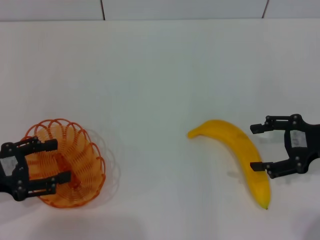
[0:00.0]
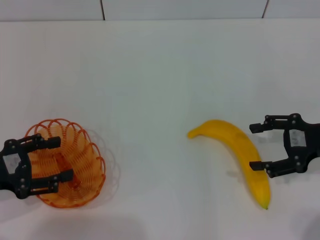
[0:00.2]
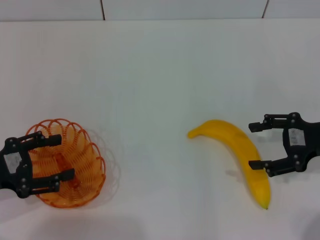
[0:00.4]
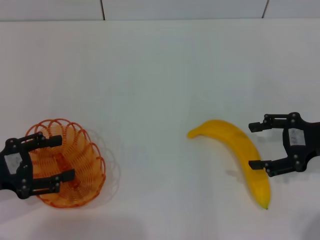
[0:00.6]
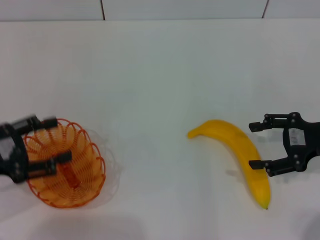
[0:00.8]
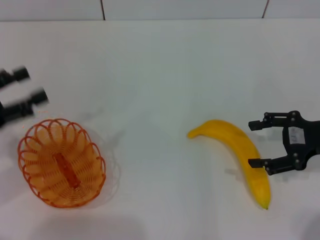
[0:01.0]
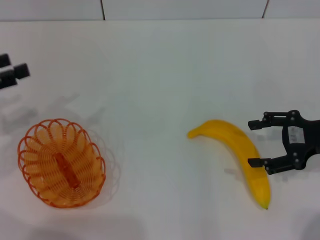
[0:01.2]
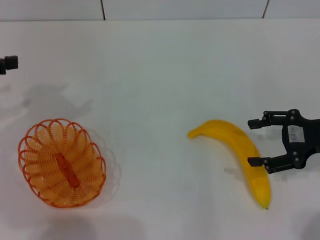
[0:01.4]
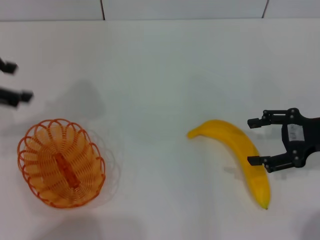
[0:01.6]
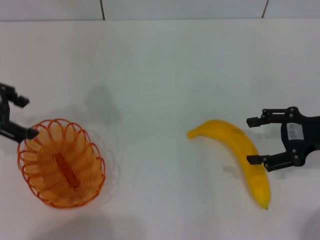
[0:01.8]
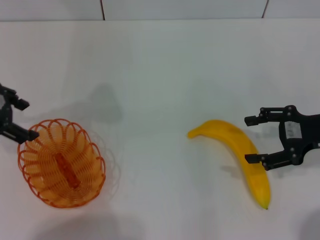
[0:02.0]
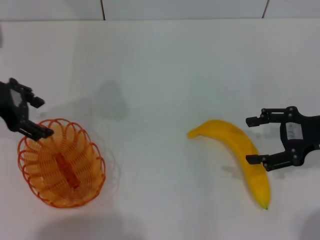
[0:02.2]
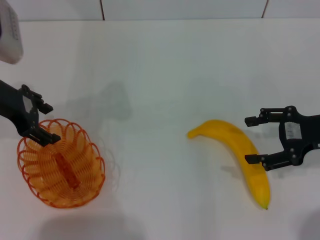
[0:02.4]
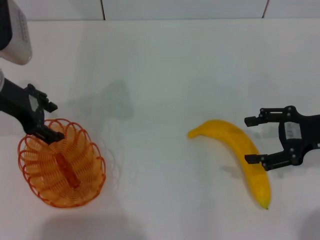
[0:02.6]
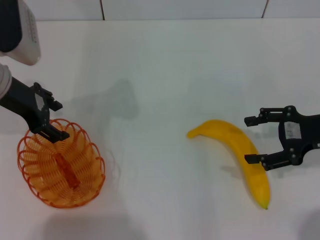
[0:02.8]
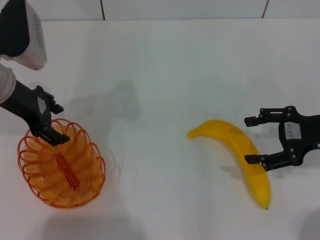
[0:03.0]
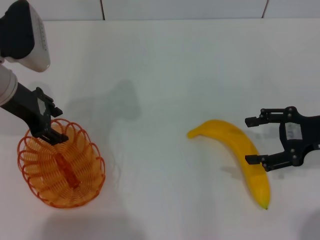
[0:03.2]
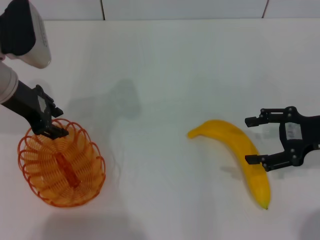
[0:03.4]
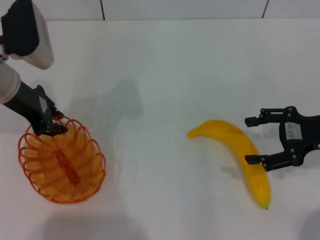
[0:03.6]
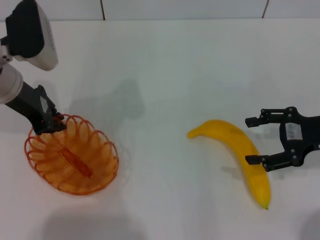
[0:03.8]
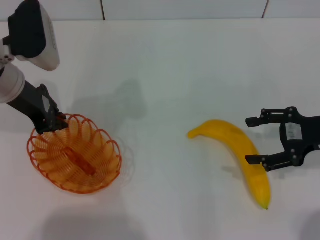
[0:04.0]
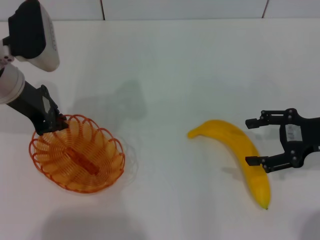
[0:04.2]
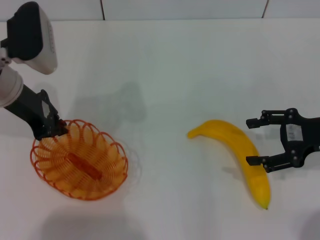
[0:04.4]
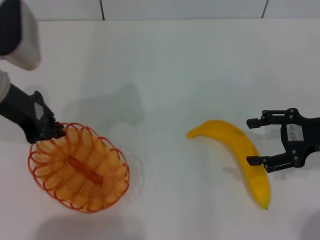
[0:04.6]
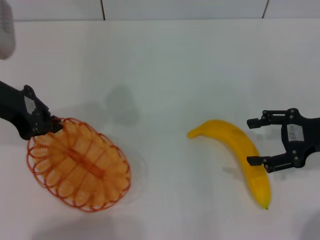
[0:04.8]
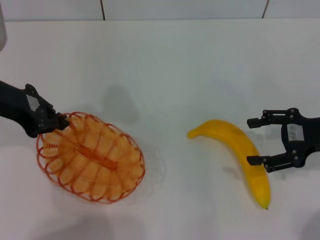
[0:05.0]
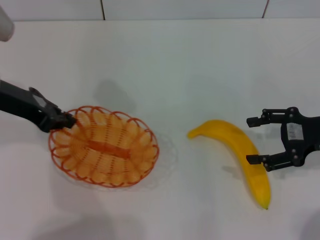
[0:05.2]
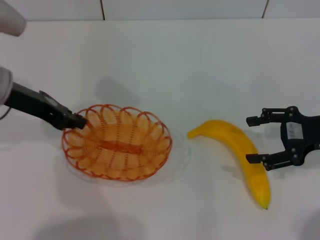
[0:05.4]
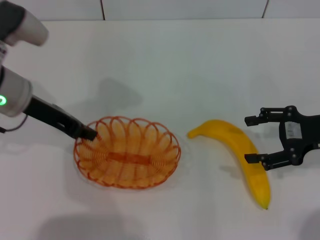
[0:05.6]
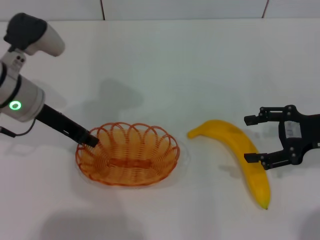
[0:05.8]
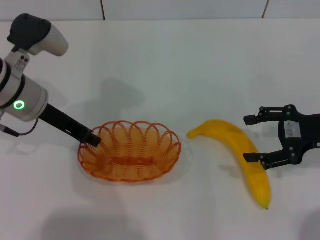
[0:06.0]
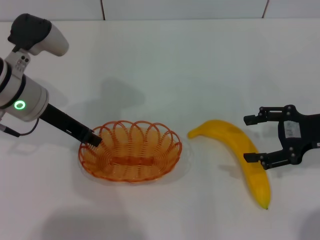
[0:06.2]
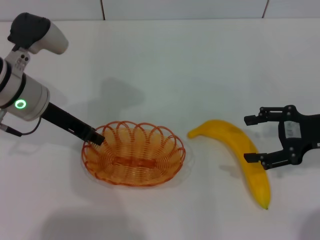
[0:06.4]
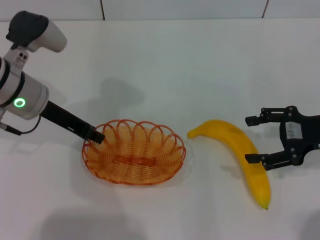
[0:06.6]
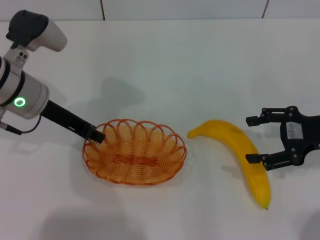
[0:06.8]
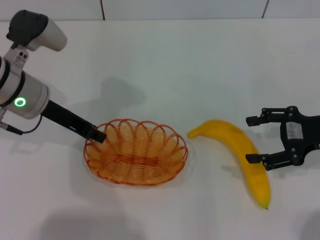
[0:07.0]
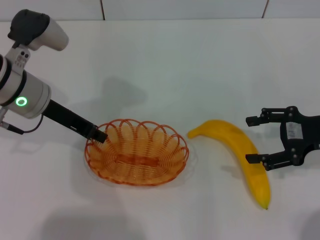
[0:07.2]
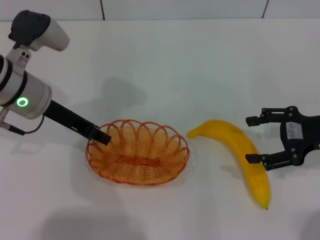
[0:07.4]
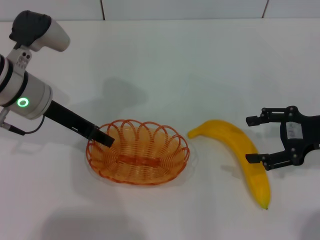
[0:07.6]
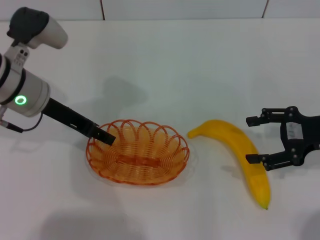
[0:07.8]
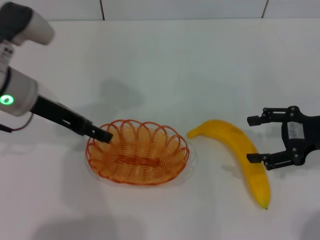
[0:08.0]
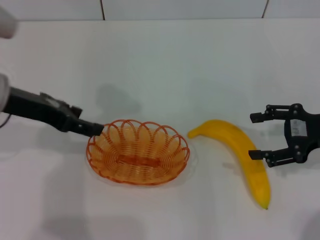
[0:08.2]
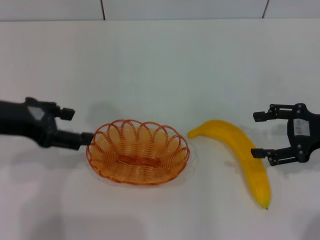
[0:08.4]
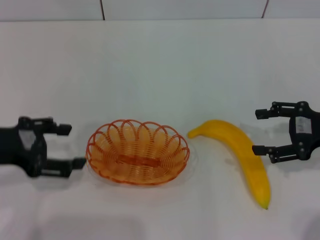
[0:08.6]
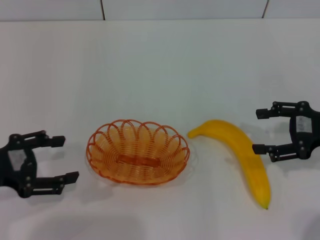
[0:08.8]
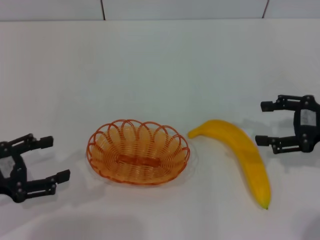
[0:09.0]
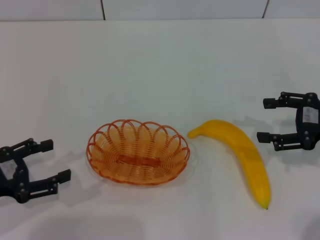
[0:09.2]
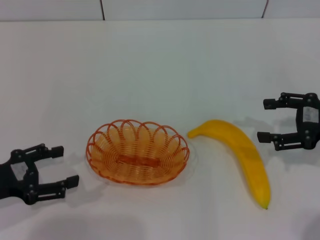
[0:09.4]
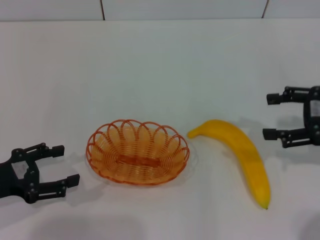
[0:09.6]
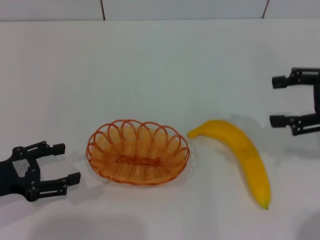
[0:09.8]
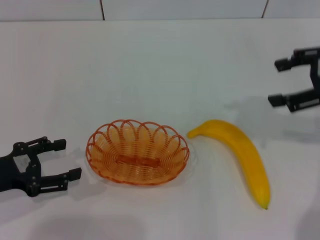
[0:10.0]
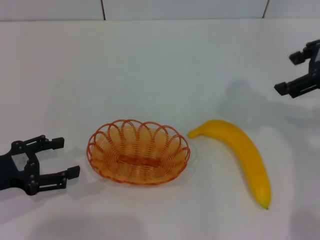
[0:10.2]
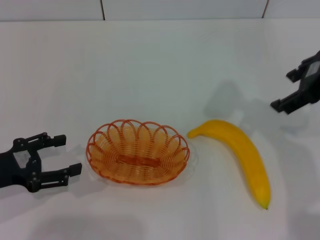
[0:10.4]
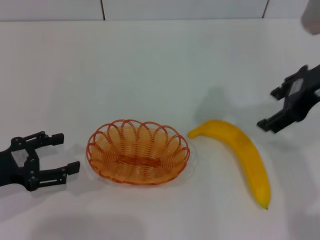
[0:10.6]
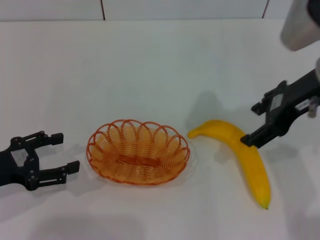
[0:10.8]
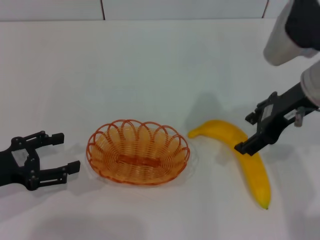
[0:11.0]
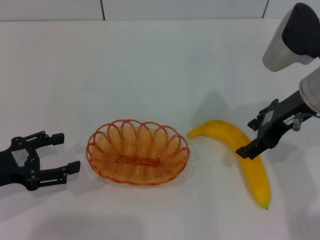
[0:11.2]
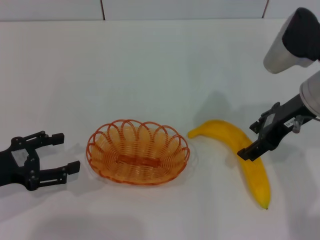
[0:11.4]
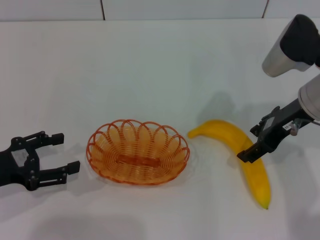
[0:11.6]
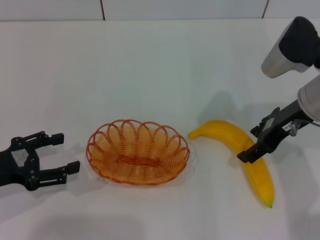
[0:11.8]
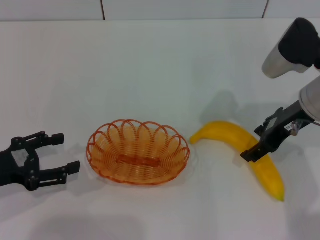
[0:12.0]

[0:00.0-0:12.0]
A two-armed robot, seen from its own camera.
Step, 0:00.0 to 0:05.0: Pick up the basket with the left gripper.
Step, 0:05.2 to 0:08.2: Place the basket in the center of view with the left gripper.
0:00.0 to 0:01.6: The left gripper moves upward and forward, roughly 20 cm.
0:01.6 to 0:03.0: The left gripper shifts about 10 cm to the right and downward.
0:03.0 to 0:04.4: The left gripper closes.
0:06.0 to 0:07.6: Both grippers stay put.
0:07.6 to 0:09.0: The left gripper is displaced backward and to the left by about 20 cm, and opens its fingers.
0:09.0 to 0:10.4: The right gripper goes about 15 cm upward and to the left.
0:10.4 to 0:12.0: The right gripper moves downward, some 10 cm.

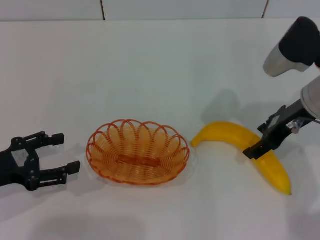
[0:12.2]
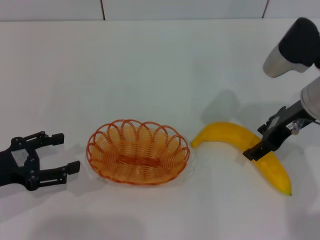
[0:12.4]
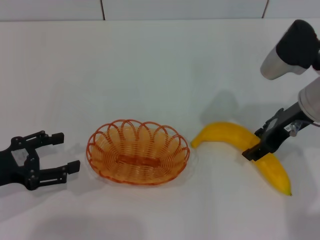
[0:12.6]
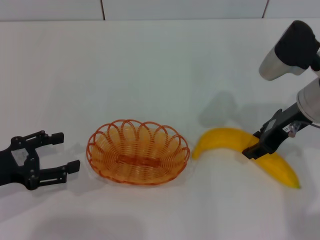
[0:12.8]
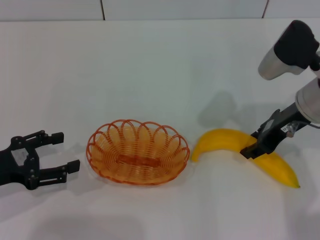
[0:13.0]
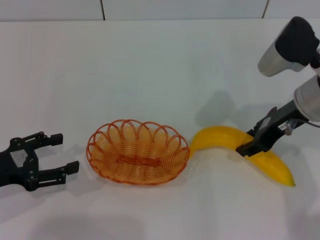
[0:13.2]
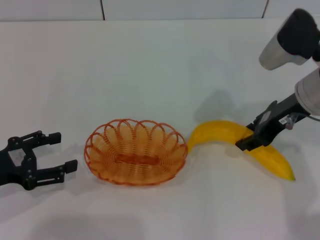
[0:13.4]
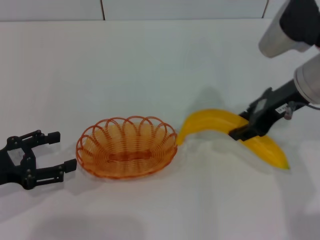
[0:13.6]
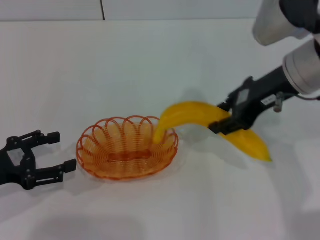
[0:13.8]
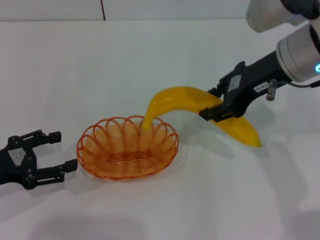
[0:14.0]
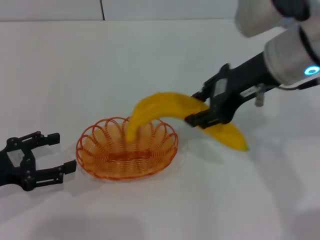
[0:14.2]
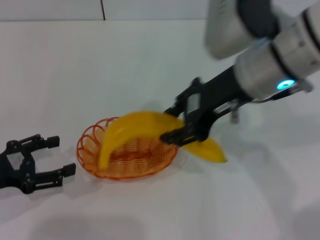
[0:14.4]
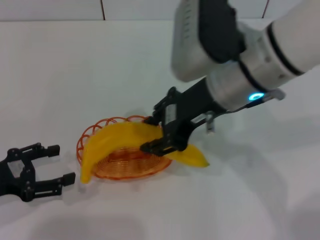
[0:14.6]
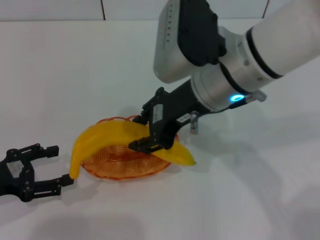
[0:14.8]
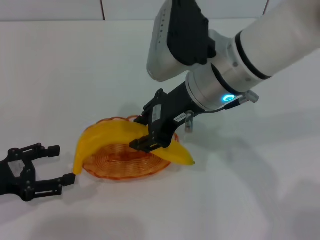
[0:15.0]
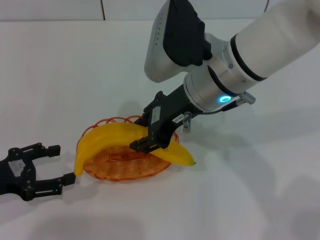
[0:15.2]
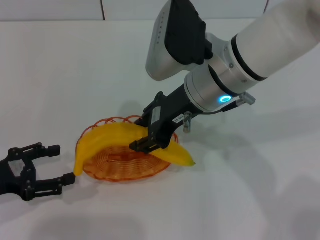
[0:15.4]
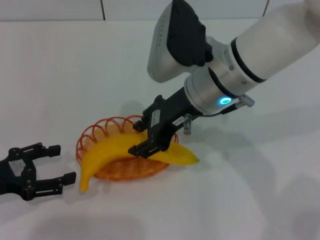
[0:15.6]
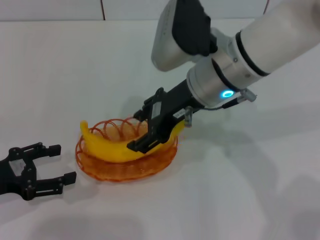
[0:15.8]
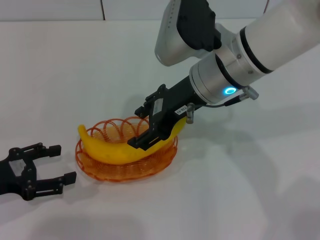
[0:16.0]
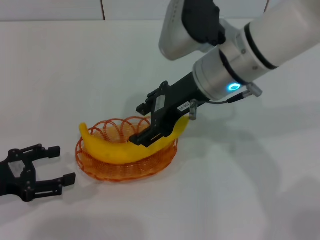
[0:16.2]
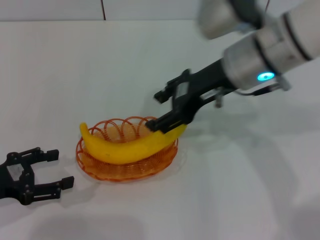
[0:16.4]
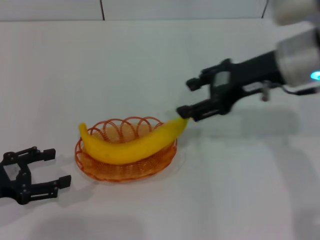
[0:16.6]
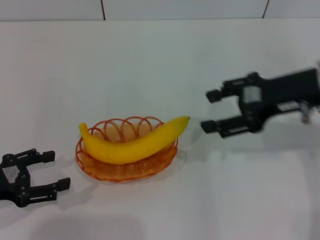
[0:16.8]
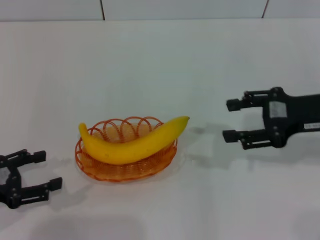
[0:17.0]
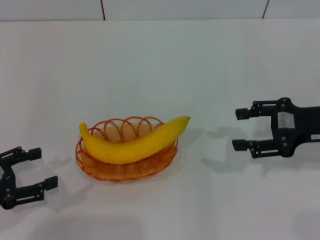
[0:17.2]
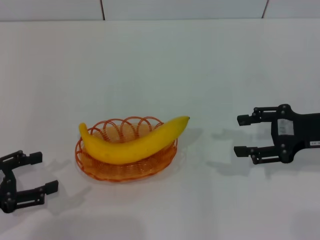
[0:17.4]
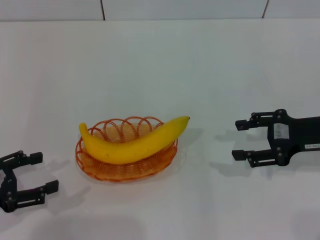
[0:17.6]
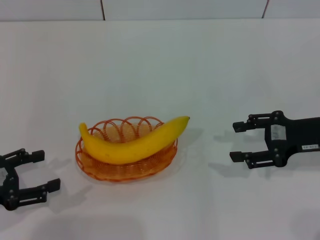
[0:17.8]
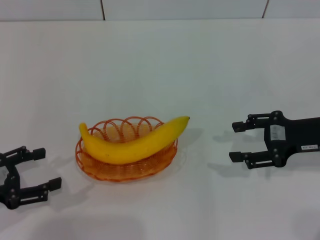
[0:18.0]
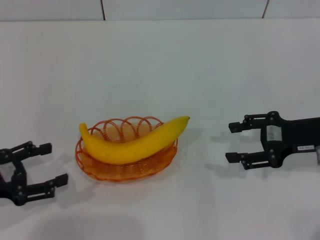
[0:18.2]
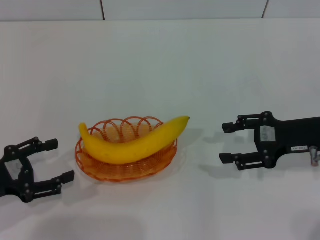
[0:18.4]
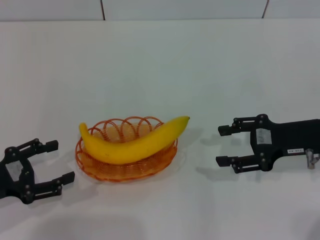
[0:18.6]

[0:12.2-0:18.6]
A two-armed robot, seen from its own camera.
Step, 0:13.8 to 0:16.2: Place the banana into the basket with the right gripper.
0:12.2 to 0:13.8: The right gripper goes some 5 cm upward, and closes up.
0:13.8 to 0:15.4: The right gripper travels to the left by roughly 10 cm.
0:15.4 to 0:17.0: The right gripper is displaced to the right by approximately 20 cm.
0:17.0 to 0:18.6: The right gripper shifts approximately 5 cm downward.

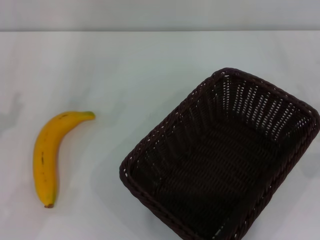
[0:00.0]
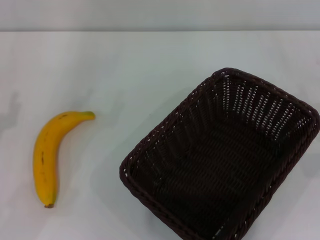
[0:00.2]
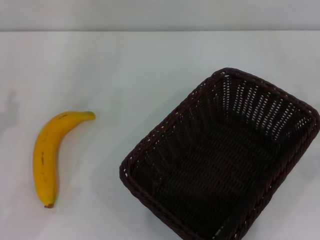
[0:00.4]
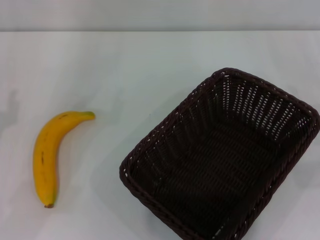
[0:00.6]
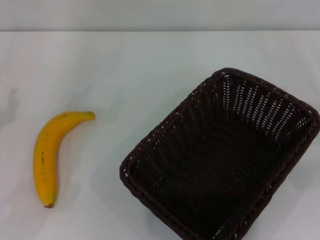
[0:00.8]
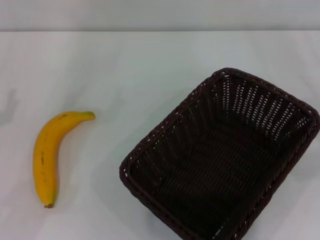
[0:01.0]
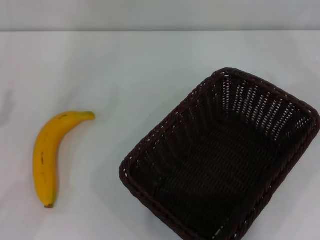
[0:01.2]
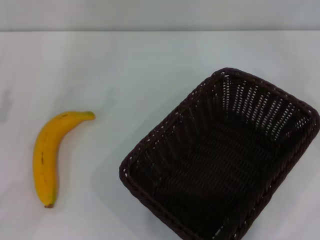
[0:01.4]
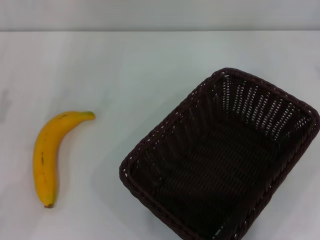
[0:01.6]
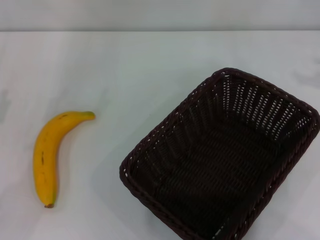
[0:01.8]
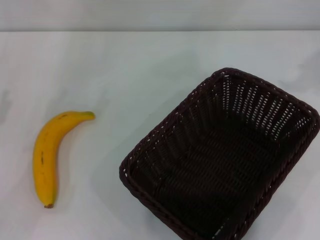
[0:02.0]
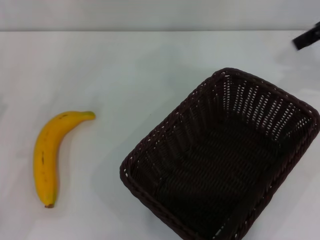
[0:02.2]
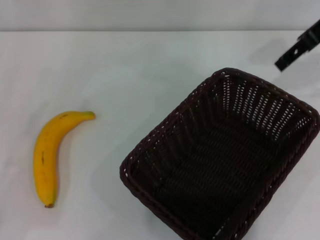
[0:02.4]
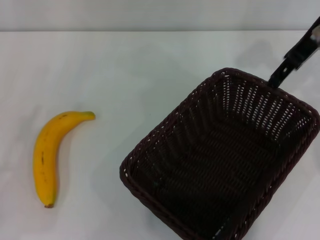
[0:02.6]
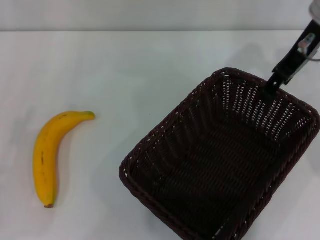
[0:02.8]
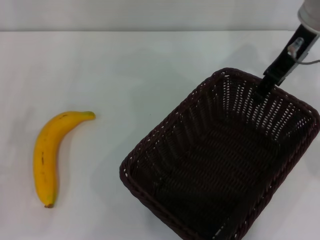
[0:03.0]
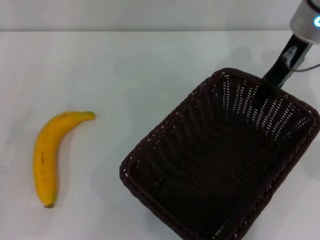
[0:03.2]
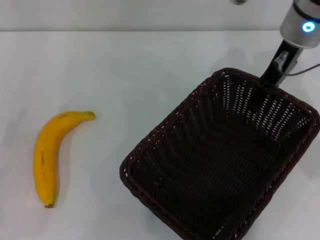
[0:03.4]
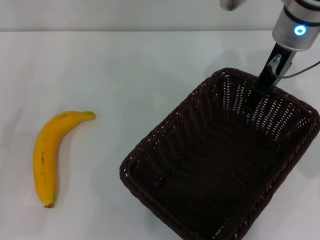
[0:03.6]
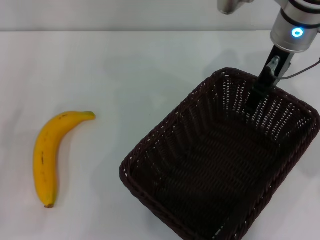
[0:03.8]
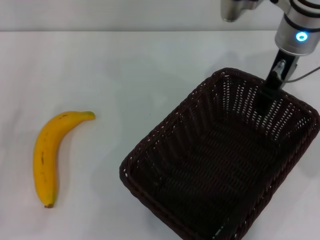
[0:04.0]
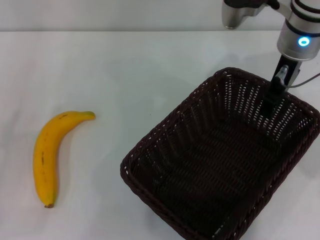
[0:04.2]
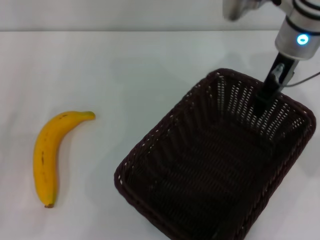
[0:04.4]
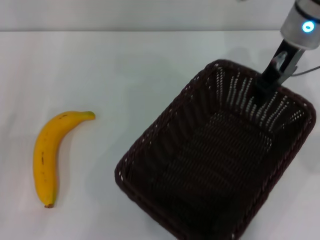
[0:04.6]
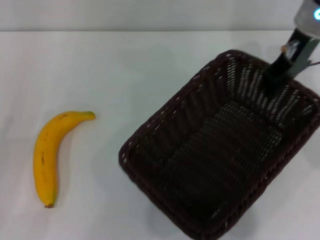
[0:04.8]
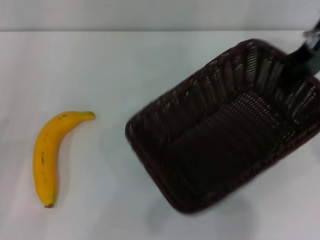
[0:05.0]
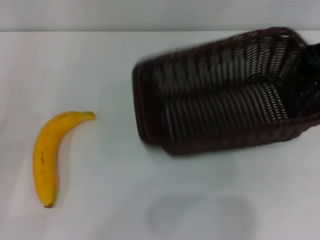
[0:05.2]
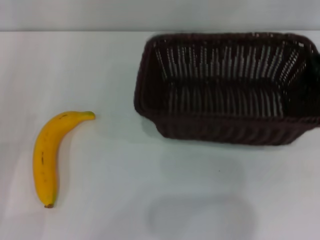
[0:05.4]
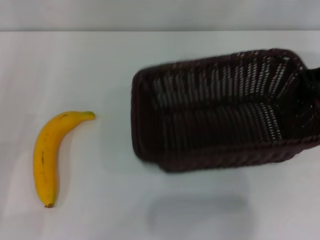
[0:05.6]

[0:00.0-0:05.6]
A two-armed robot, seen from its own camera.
Step, 0:00.0 to 0:04.8: Pick up the dark basket with the right gripper.
0:01.4 to 0:02.8: The right gripper goes approximately 25 cm to the left and forward.
0:02.8 to 0:04.2: The right gripper shifts some 5 cm downward.
0:04.2 to 0:05.6: The right gripper travels to the right by approximately 10 cm, and closes.
